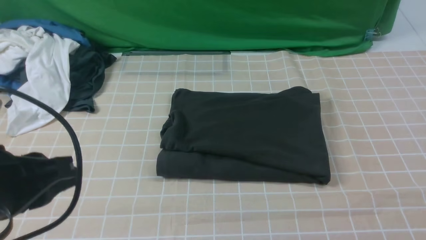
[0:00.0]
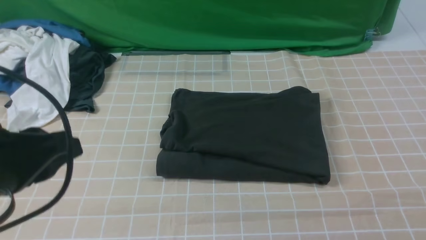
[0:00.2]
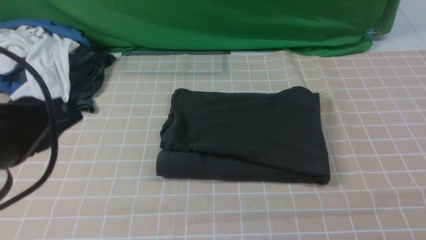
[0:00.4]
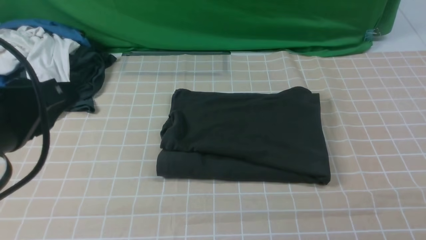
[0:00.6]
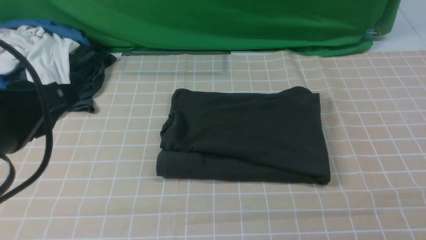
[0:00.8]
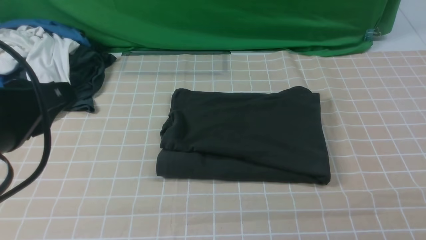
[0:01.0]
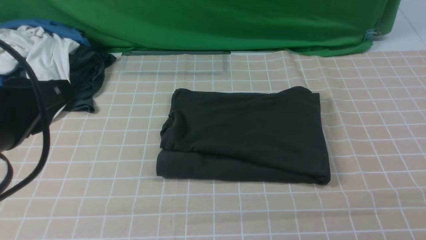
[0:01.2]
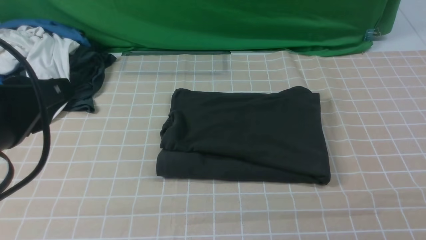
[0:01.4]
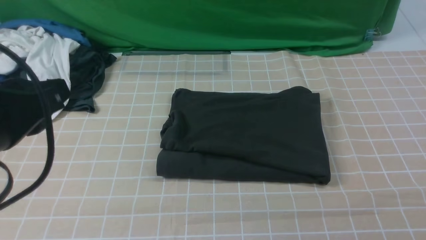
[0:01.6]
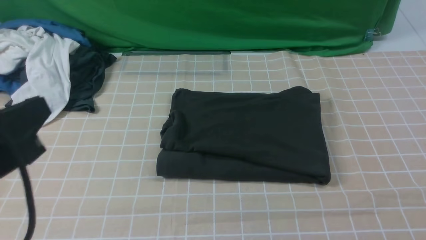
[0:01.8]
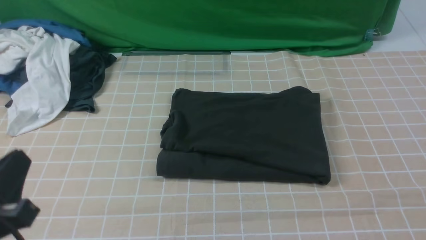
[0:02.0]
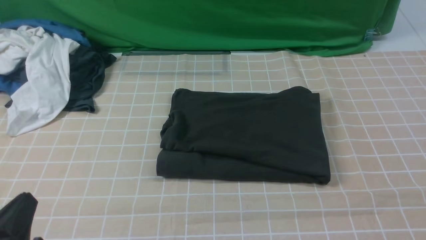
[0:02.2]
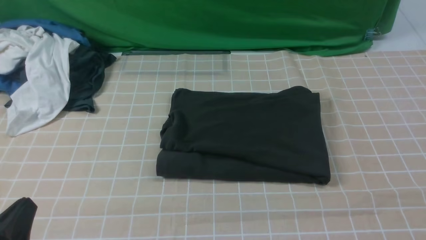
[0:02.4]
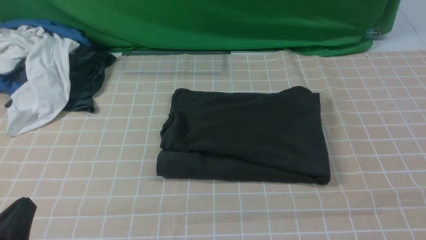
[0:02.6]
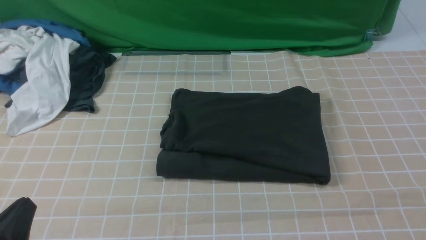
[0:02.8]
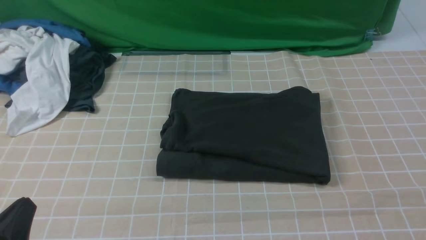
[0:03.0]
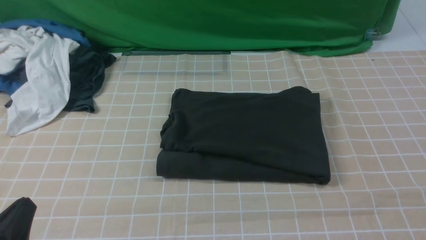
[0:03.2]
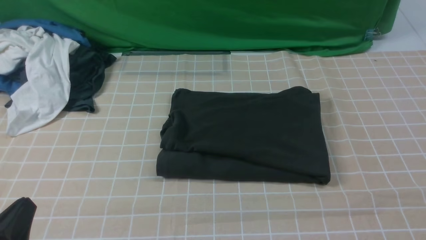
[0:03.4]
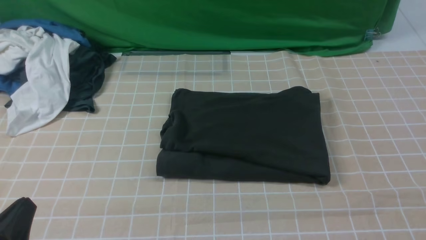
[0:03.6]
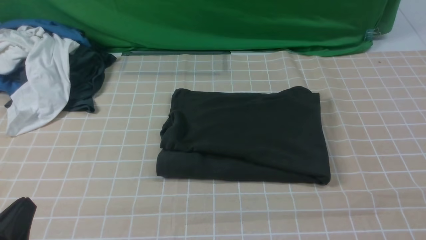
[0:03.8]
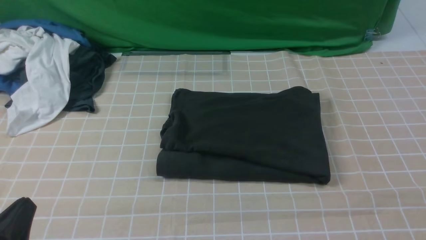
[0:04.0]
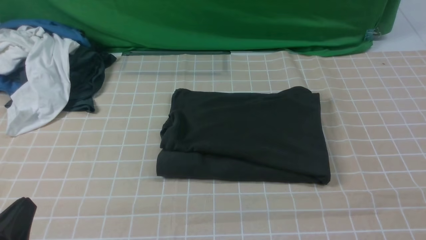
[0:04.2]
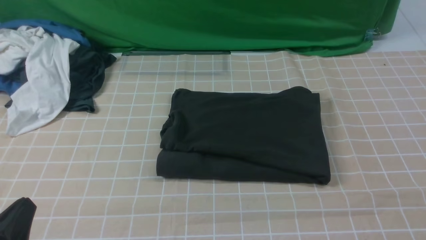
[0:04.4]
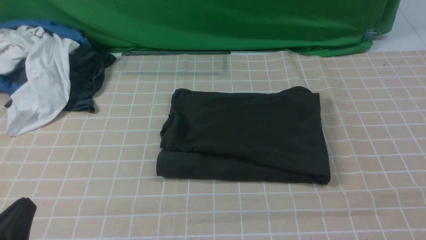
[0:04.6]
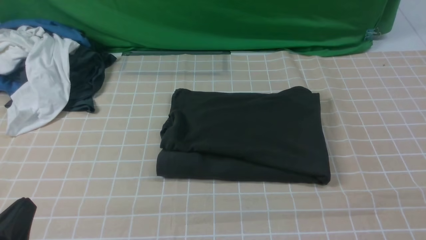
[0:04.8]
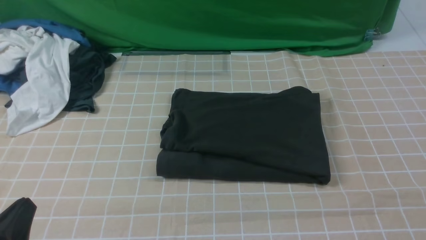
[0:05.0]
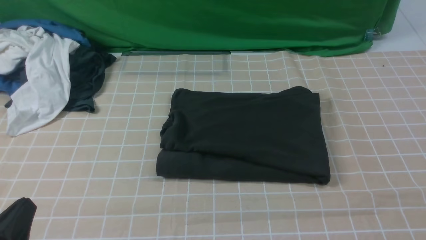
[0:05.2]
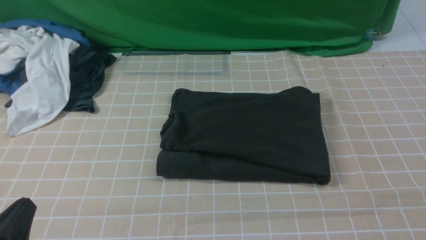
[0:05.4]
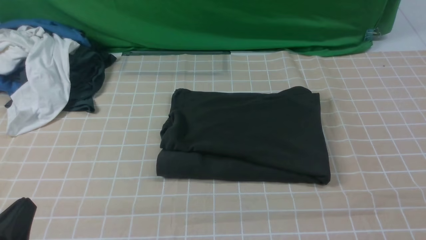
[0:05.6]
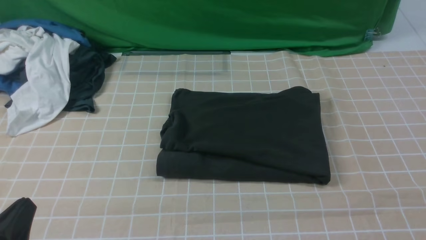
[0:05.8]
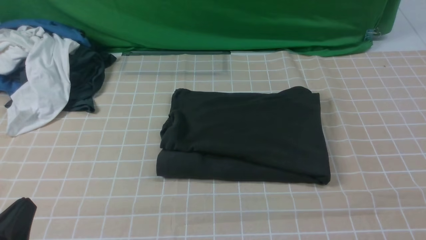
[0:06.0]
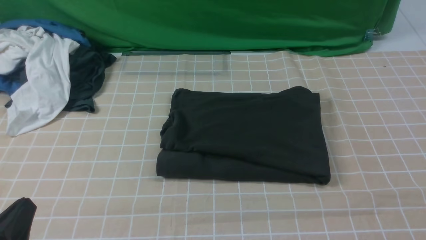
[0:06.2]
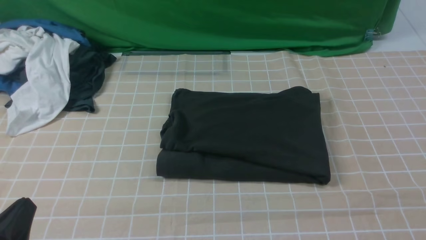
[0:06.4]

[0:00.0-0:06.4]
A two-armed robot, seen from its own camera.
0:01.6 to 0:03.2: The left gripper shifts about 15 cm downward and backward.
0:04.8 to 0:06.4: Neither gripper changes place.

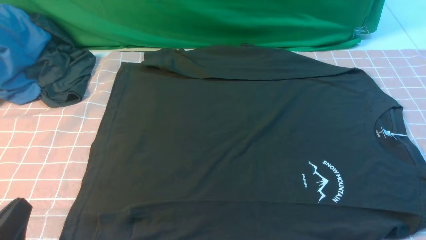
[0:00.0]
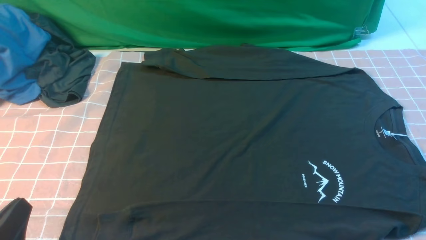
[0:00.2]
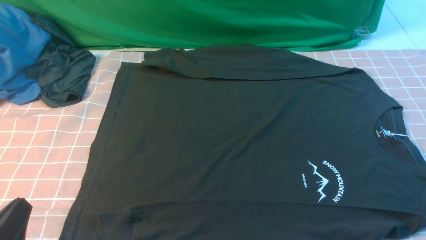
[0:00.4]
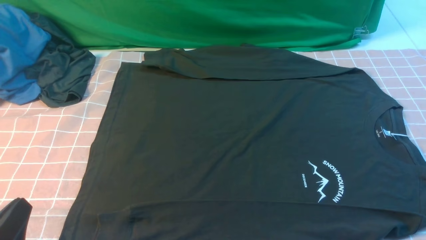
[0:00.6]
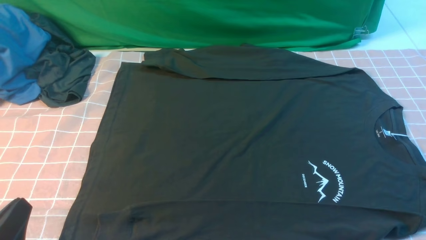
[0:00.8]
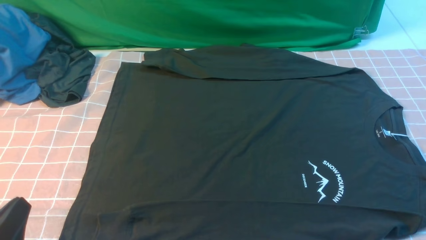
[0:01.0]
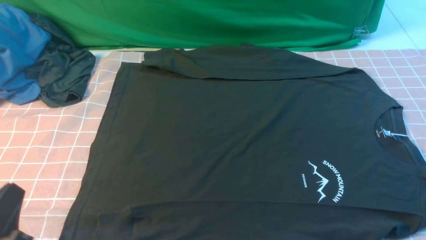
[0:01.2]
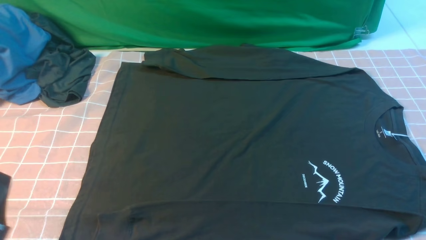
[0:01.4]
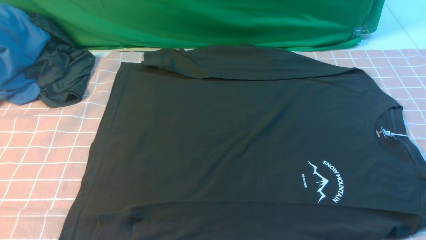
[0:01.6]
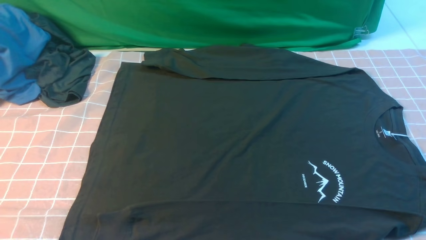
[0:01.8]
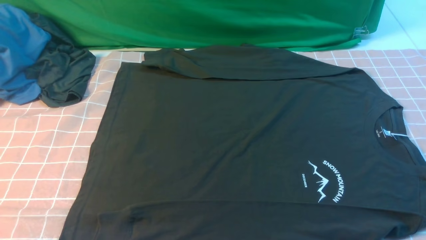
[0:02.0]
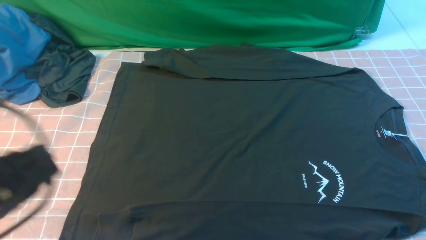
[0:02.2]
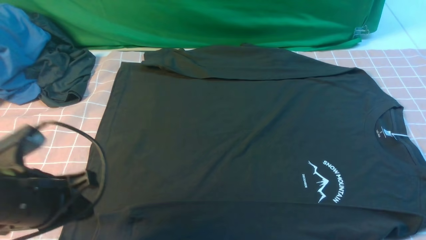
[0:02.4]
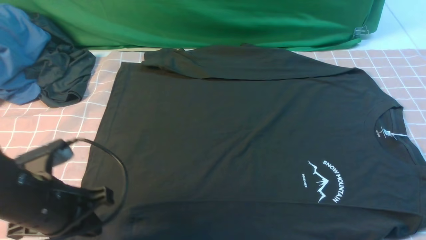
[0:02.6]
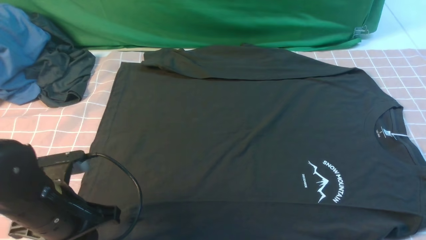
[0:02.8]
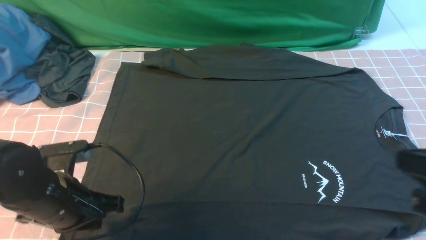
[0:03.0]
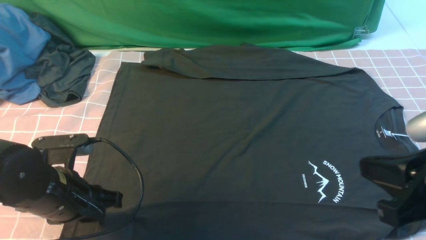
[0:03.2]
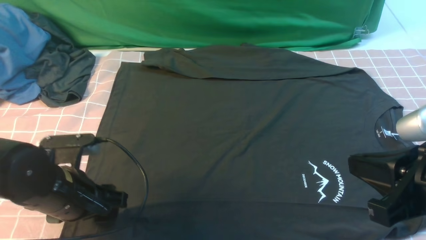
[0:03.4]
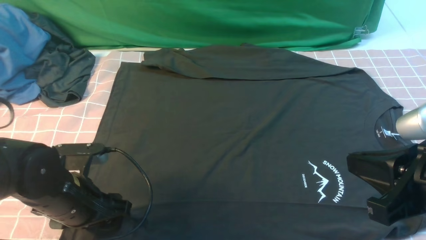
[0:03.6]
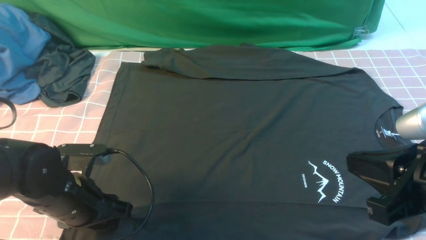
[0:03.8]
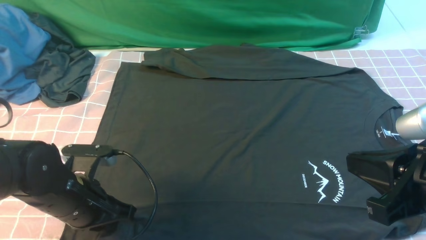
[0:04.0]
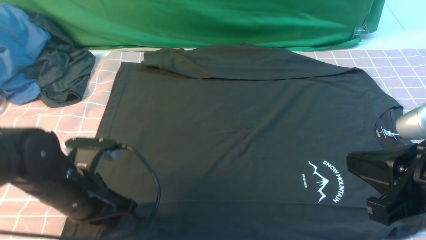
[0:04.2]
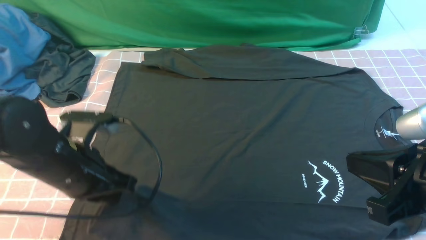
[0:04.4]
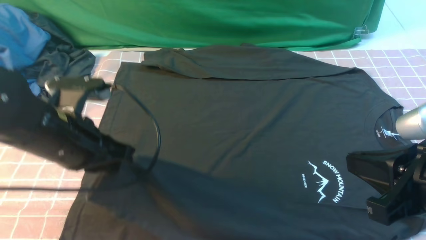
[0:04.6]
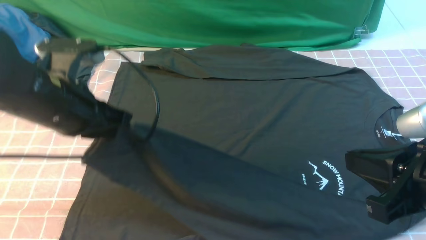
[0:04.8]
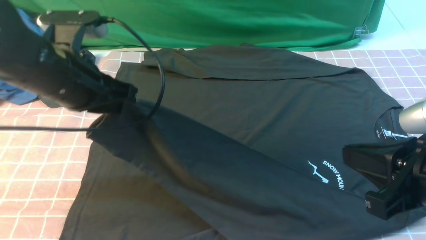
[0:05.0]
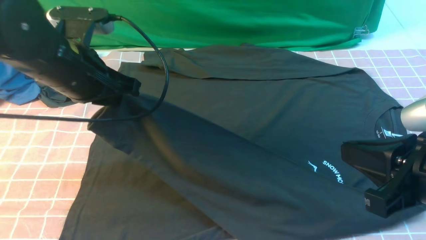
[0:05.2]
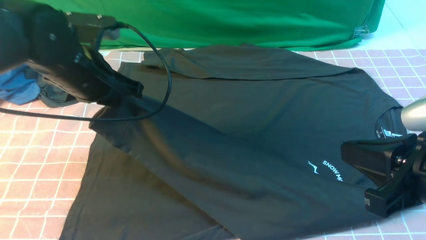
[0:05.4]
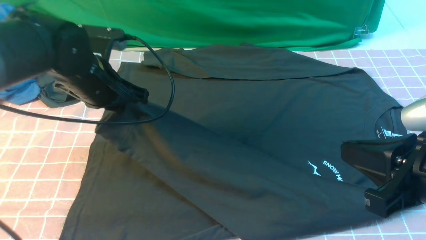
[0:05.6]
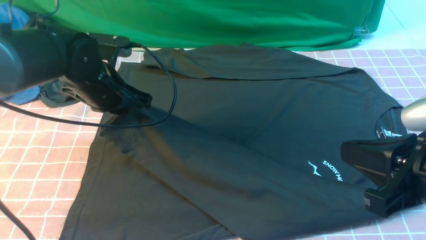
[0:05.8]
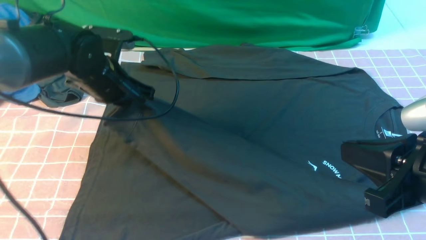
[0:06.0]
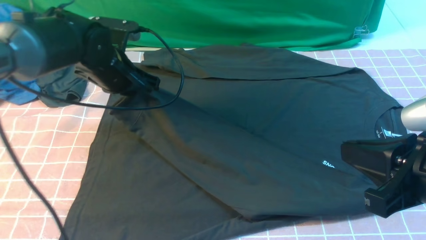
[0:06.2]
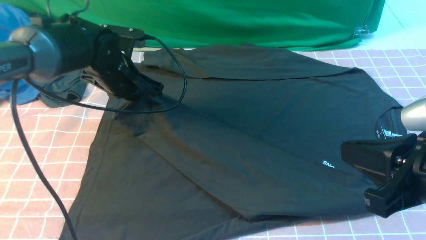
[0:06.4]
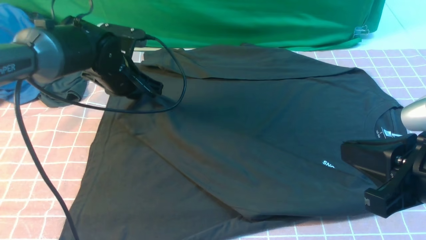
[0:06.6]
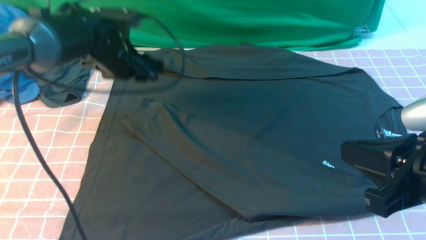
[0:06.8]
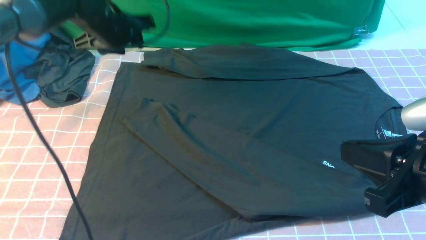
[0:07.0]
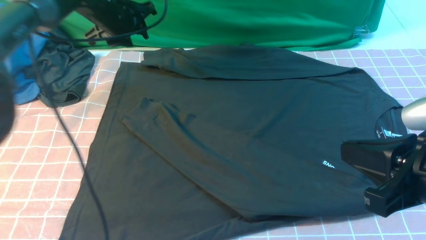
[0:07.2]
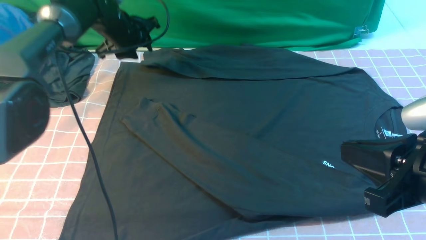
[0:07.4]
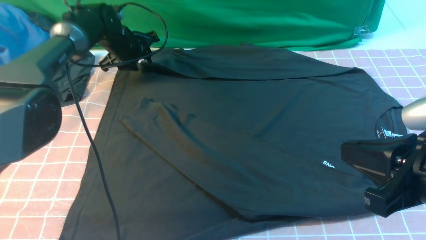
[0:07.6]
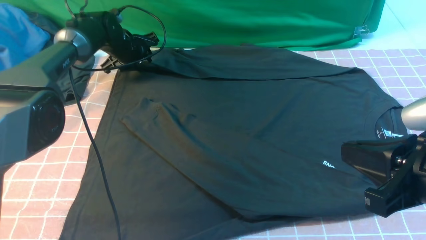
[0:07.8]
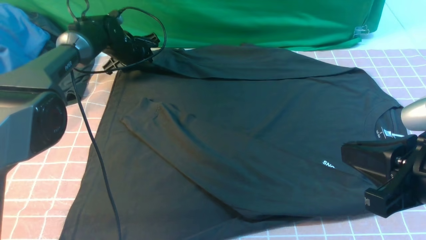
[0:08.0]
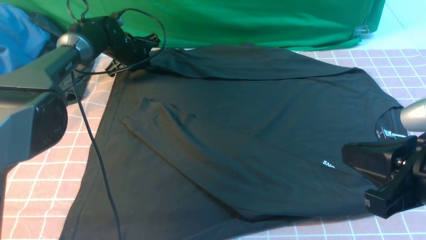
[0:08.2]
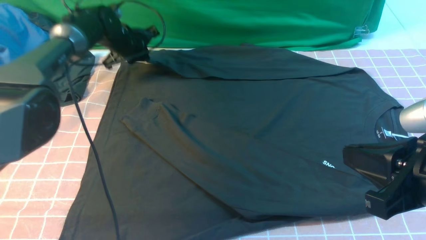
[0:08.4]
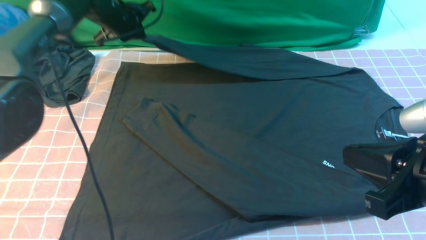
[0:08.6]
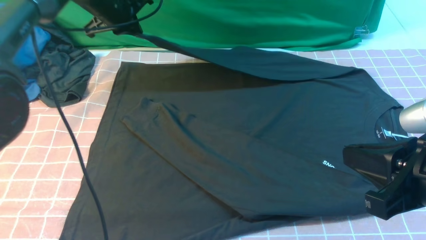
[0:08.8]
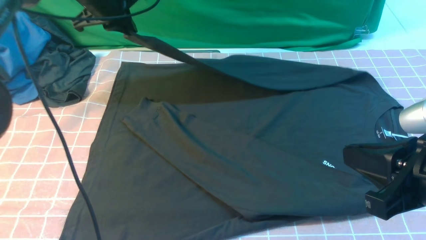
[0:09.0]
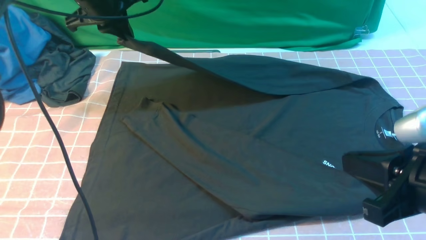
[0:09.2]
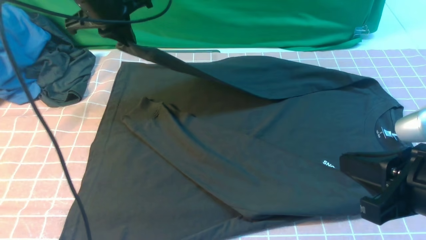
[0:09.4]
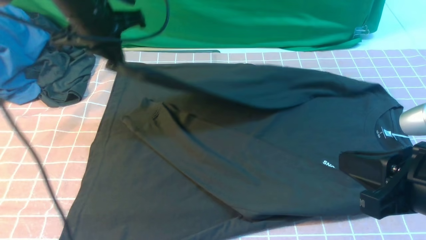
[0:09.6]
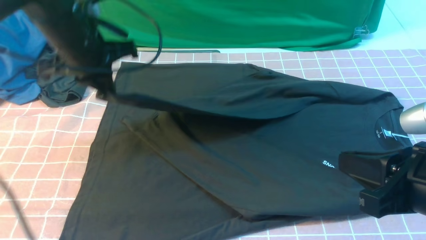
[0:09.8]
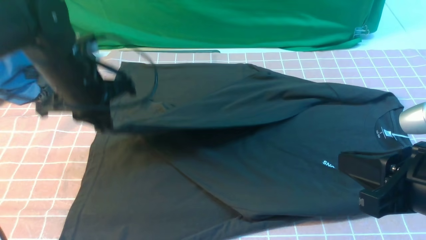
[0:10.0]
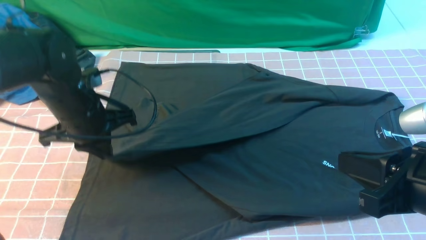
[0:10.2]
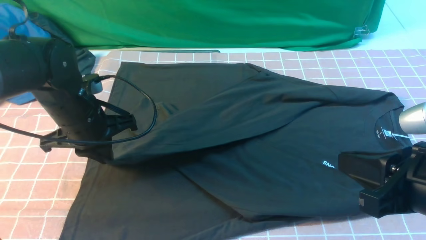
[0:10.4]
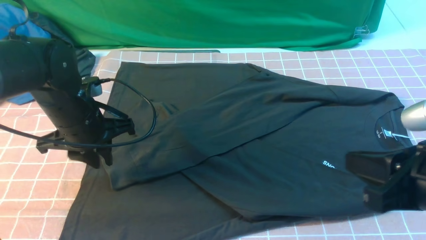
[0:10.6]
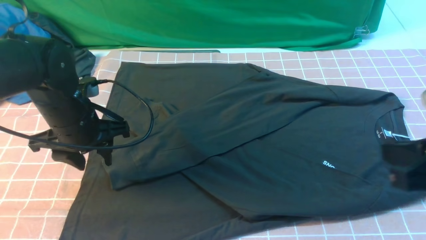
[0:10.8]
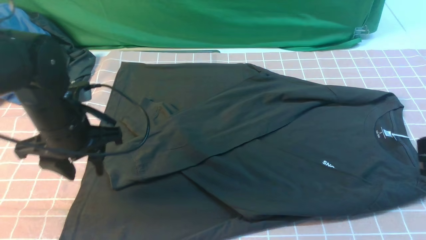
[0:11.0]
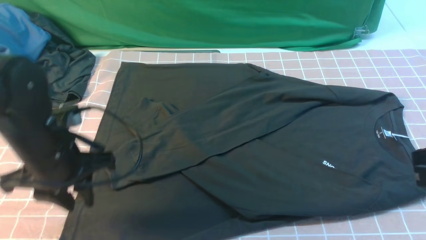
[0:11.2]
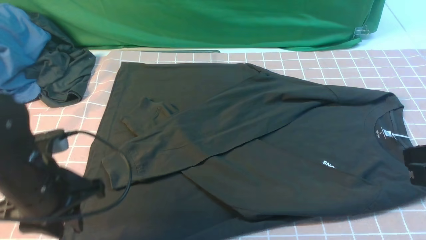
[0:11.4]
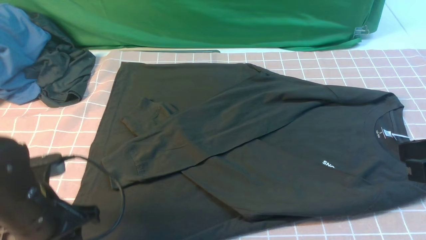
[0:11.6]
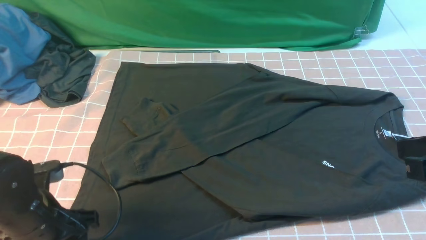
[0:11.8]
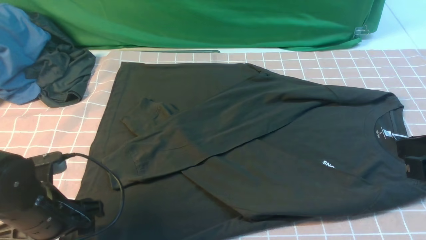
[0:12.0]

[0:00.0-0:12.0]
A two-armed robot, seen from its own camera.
Step, 0:00.0 to 0:04.4: use the left arm to clamp the cuff closest to it.
Step, 0:04.6 to 0:06.8: use the left arm to drag and place the cuff at the centered position on the left edge of the fabric.
Step, 0:07.0 to 0:08.4: use the left arm to clamp the cuff farthest from it.
Step, 0:08.6 to 0:10.8: use the left arm to drag and drop the cuff onto the cuff closest to the left arm.
0:00.0 to 0:01.6: The left gripper is displaced upward by approximately 5 cm.
0:01.6 to 0:03.0: The left gripper heads forward, covering about 15 cm. The right gripper travels upward, to the left and forward by about 15 cm, and closes.
0:03.0 to 0:04.4: The left gripper ends up roughly 5 cm from where it was, and opens, then closes once more.
0:04.4 to 0:06.0: The left gripper travels forward by approximately 15 cm.
0:06.0 to 0:07.6: The left gripper travels forward by approximately 15 cm, and opens.
0:07.6 to 0:09.0: The left gripper shifts approximately 15 cm upward and backward, and closes its fingers.
0:09.0 to 0:10.4: The left gripper travels backward and downward by roughly 20 cm.
0:10.4 to 0:12.0: The right gripper changes place by some 5 cm. The left gripper shifts some 15 cm backward, and opens up.
